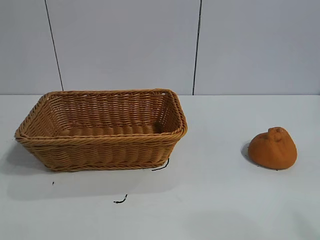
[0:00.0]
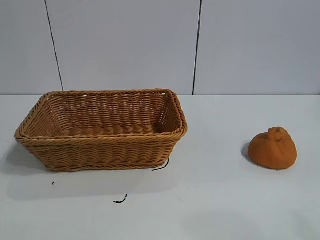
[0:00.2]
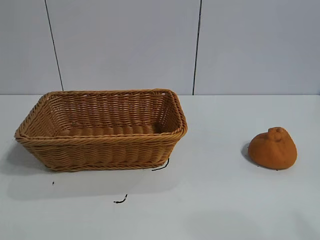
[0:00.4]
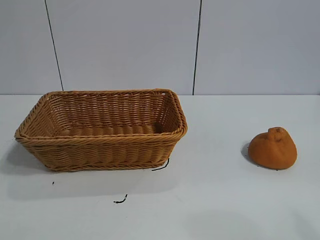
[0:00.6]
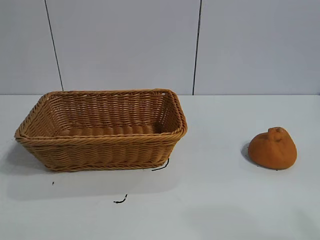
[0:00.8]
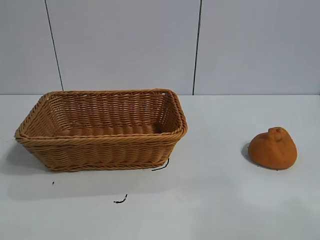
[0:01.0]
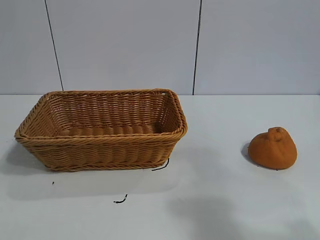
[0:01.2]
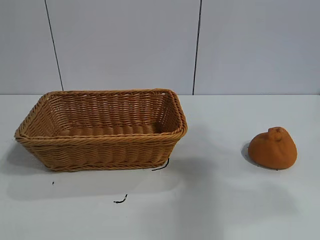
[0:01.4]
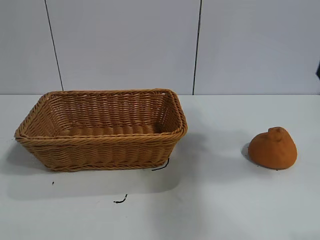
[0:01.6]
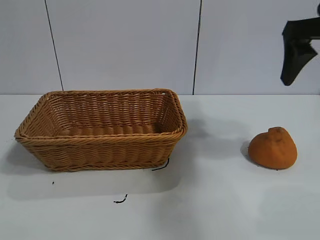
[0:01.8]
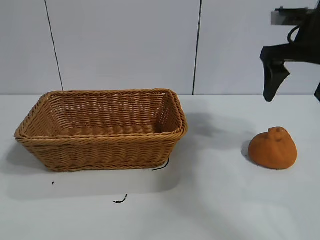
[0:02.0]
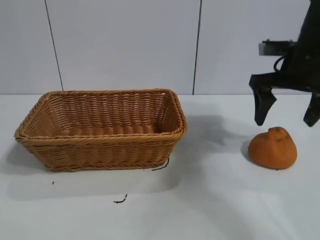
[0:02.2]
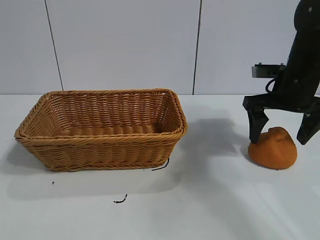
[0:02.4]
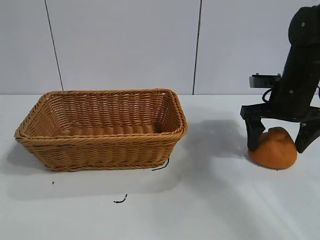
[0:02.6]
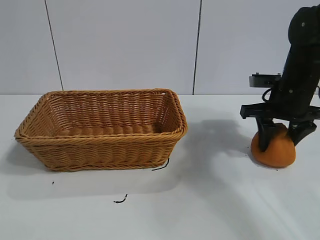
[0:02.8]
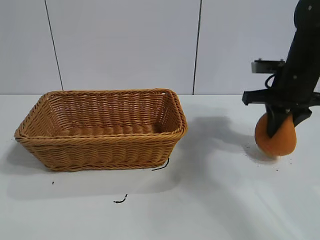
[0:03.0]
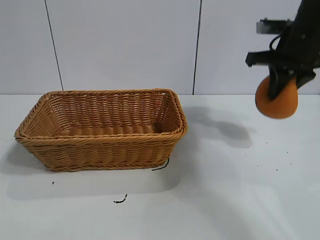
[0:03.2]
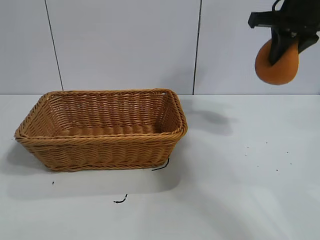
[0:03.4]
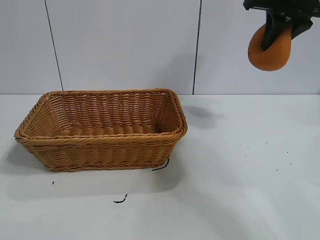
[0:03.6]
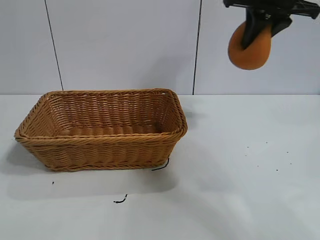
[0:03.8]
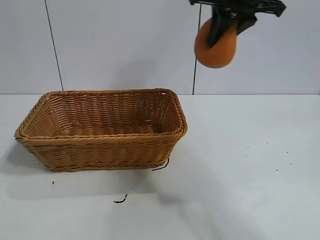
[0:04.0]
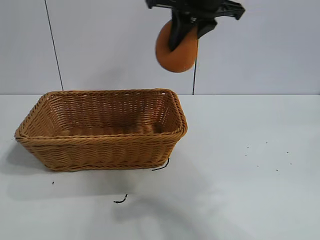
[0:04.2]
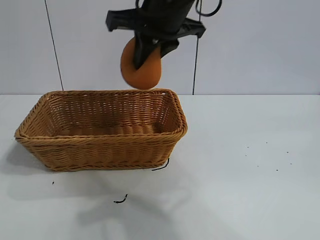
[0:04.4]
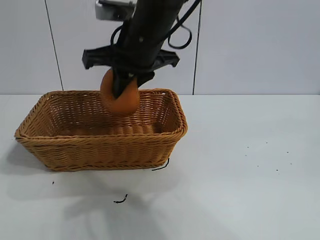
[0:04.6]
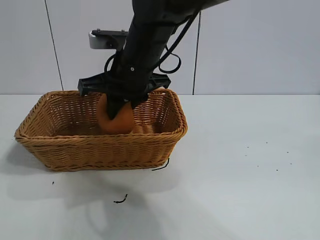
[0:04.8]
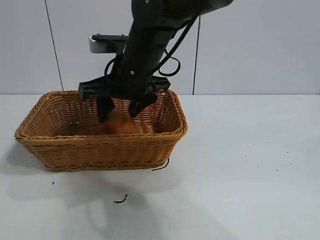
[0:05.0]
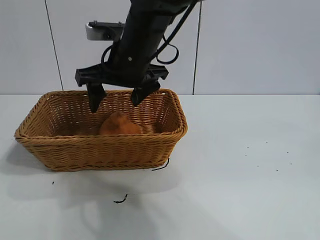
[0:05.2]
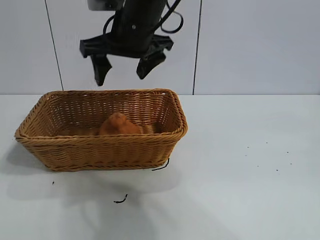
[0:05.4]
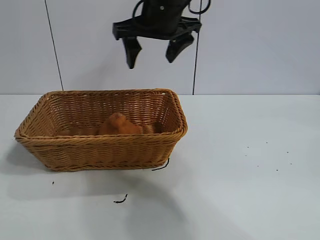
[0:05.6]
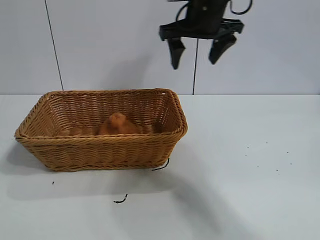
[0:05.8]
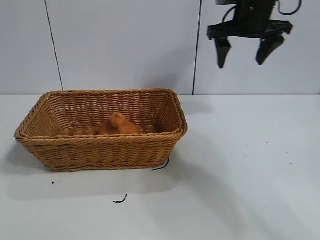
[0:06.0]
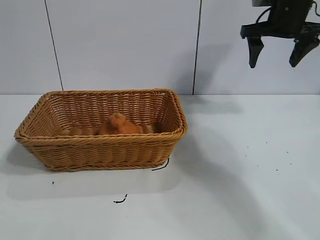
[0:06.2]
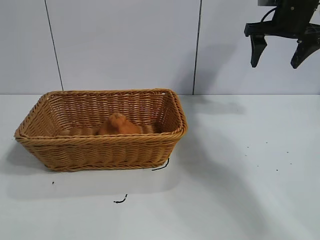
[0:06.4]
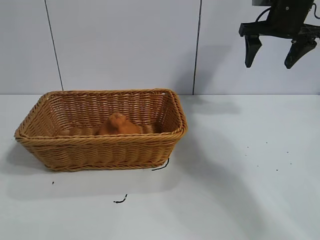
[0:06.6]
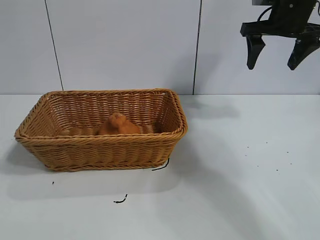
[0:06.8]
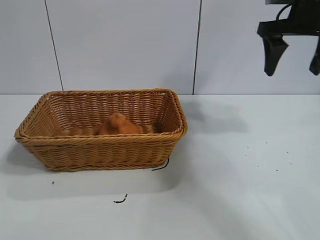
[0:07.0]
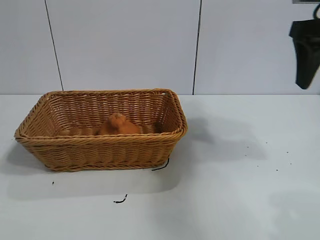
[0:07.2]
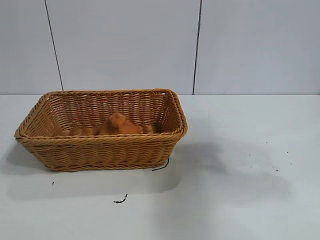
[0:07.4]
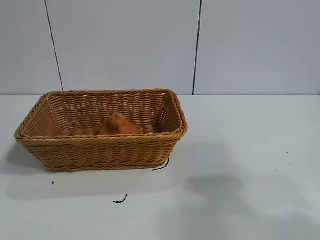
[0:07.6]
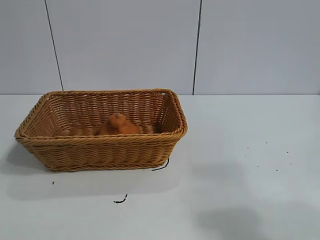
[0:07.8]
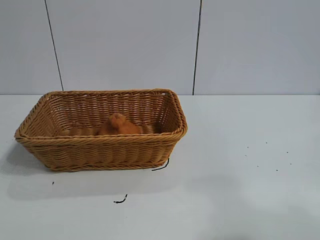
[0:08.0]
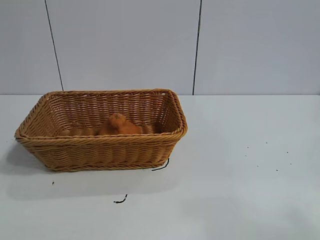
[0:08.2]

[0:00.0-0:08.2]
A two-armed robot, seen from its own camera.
Task of the whole recording: pick up the orange and put it into the basket.
Step, 0:00.8 to 0:02.8: Grasp the orange with right gripper.
Step, 0:03.2 to 0:05.0: Place the orange in the basket with right gripper.

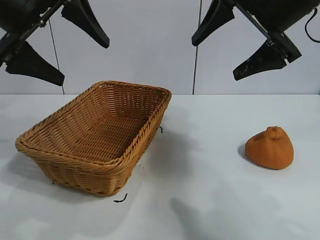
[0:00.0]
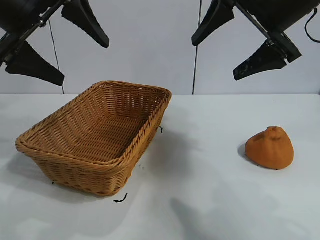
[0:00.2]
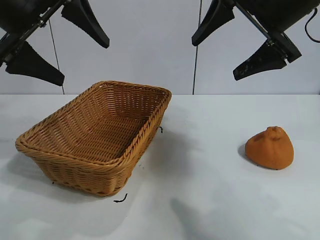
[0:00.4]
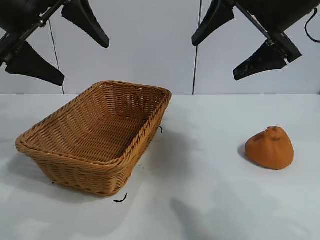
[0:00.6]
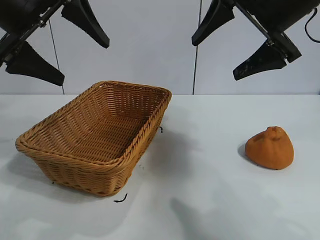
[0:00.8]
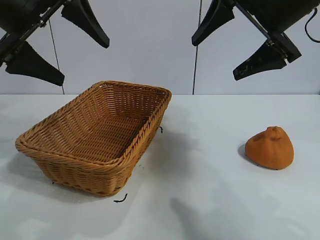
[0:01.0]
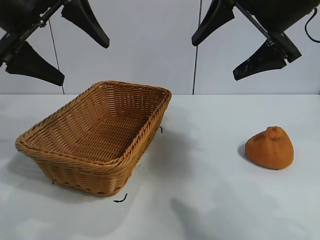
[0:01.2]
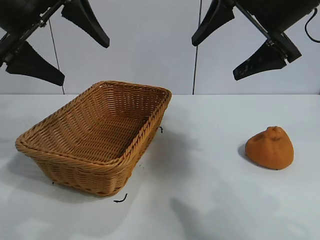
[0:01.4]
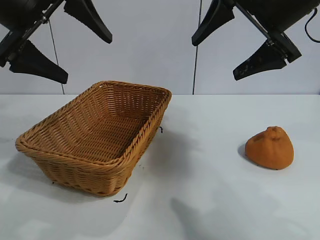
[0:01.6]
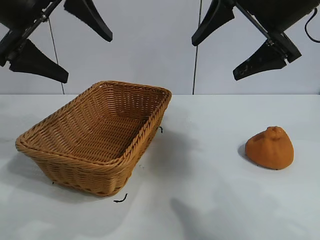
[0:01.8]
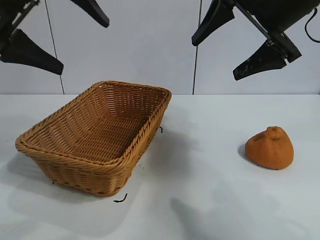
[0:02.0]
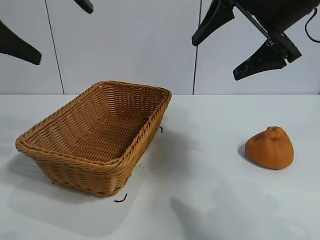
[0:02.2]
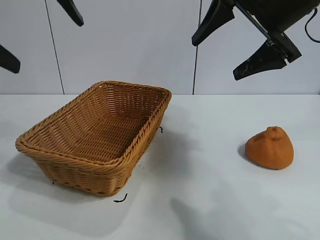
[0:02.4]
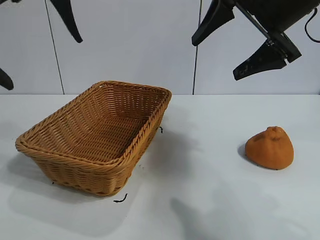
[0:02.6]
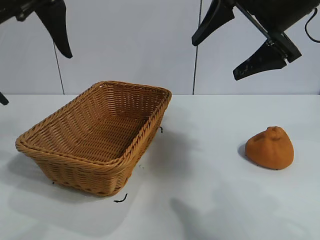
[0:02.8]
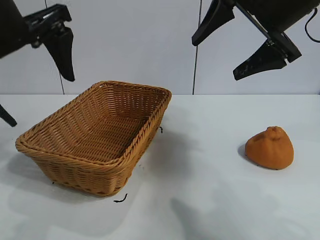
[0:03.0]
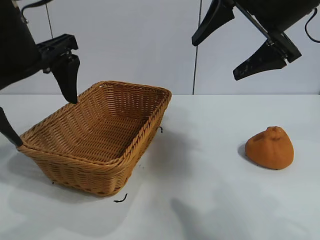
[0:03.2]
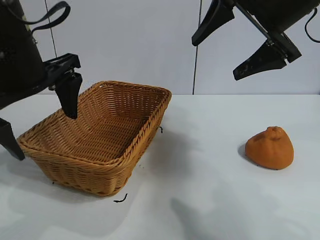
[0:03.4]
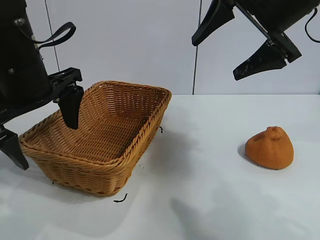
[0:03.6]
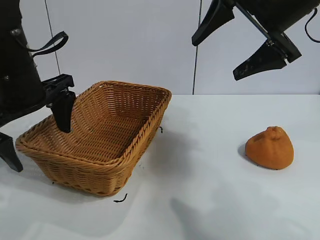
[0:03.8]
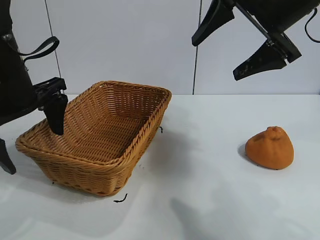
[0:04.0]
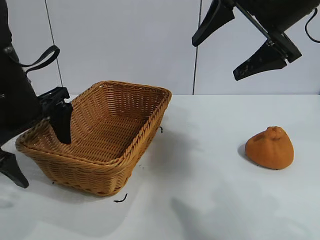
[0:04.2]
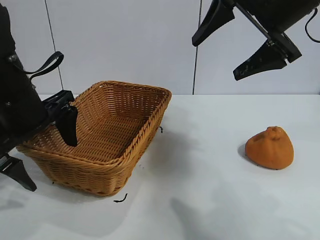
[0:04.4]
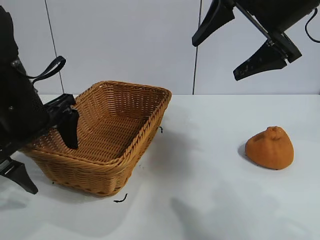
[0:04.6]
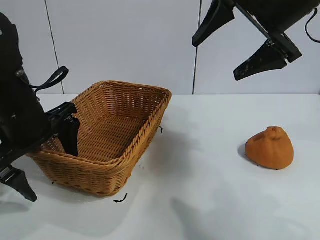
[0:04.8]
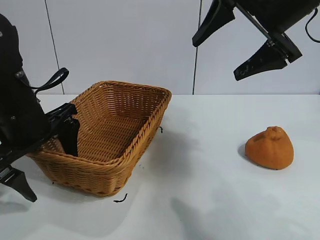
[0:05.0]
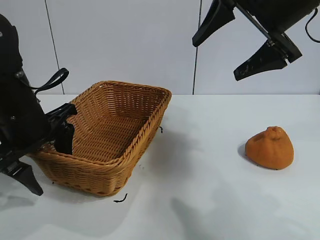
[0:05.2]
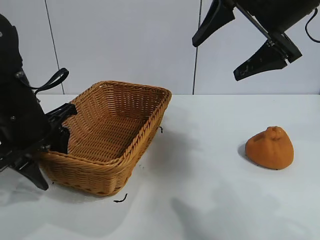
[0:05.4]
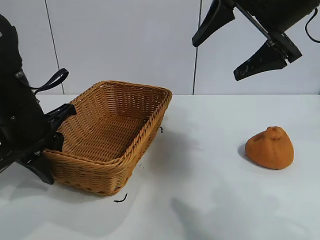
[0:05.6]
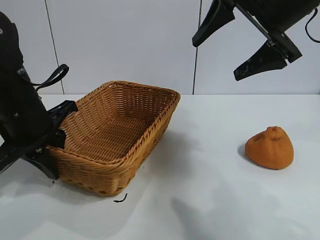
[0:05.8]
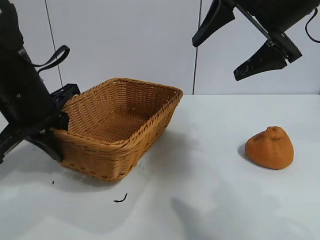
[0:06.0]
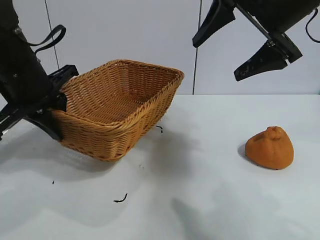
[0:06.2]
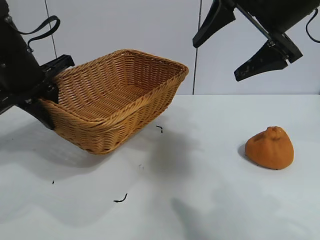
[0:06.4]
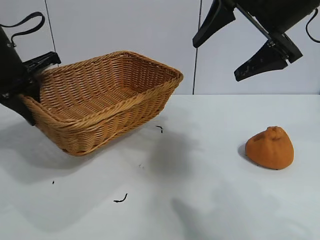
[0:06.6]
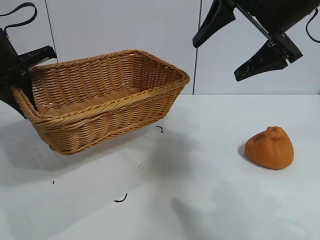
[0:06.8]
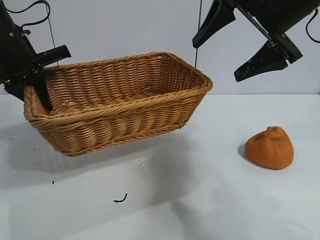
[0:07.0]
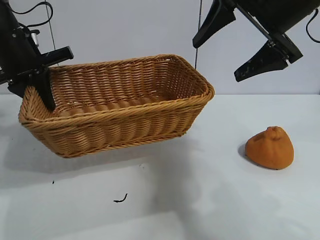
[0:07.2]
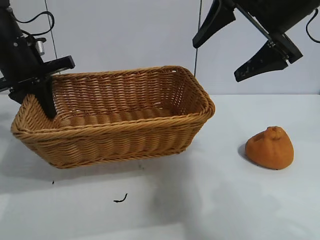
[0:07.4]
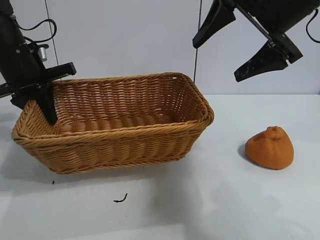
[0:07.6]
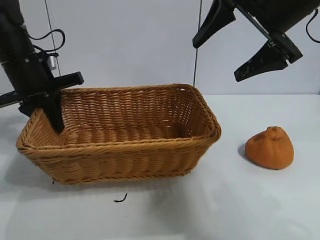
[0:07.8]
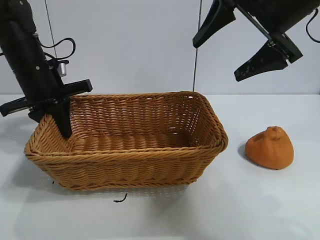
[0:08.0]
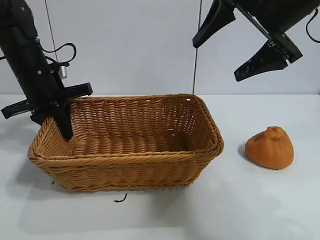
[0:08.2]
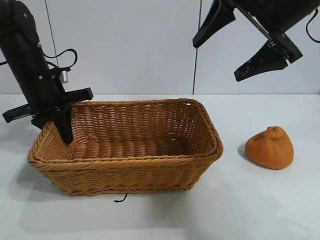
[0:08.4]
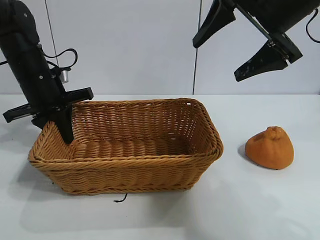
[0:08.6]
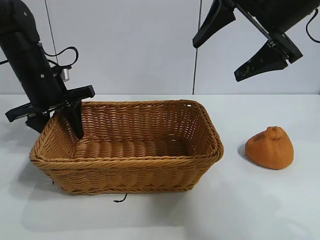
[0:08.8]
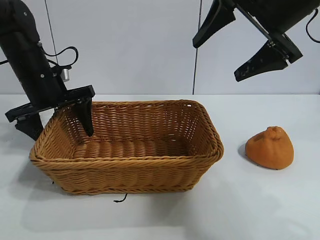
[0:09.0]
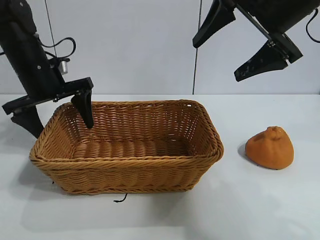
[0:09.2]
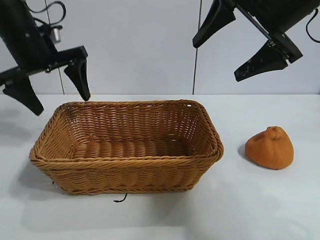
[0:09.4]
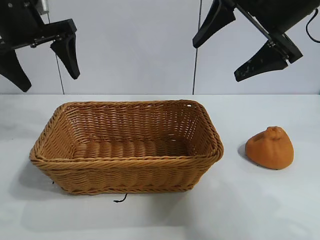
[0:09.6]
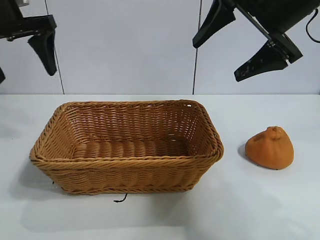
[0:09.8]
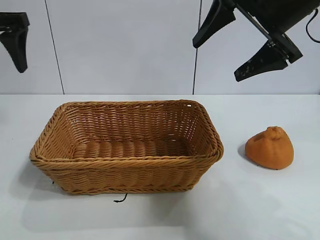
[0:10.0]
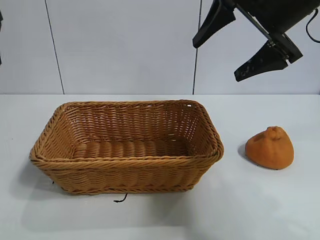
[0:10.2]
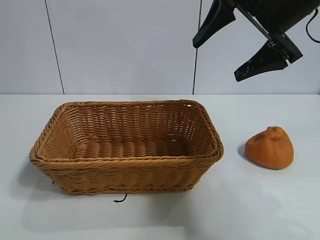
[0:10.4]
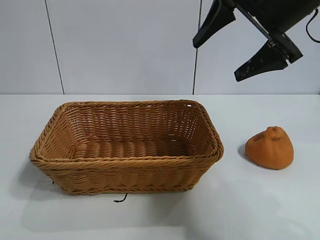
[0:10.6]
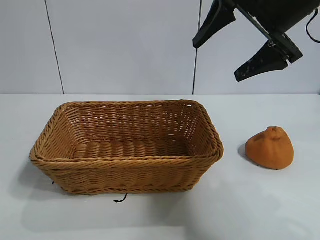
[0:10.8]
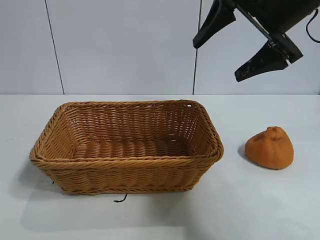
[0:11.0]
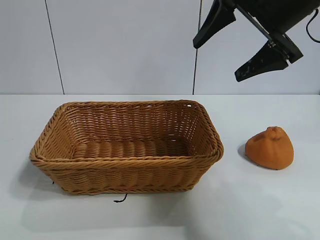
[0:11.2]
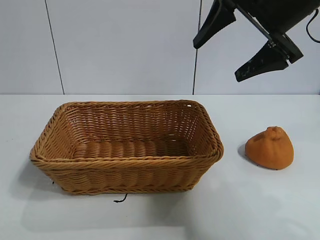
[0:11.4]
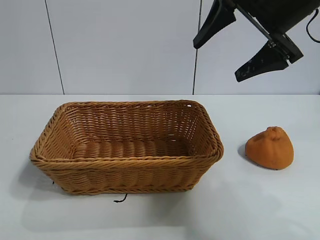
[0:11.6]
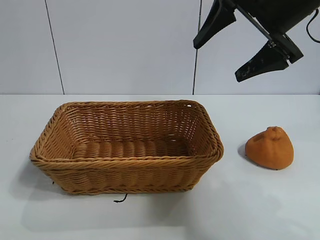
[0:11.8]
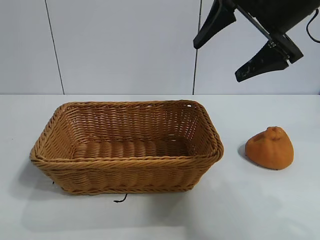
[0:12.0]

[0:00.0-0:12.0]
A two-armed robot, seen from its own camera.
Task of the whole recording: pick up the orange and put it into the basket.
Step, 0:01.4 to 0:05.6: Grasp the basket with left gripper.
Step, 0:05.8 to 0:09.0: Place the basket in the center of view with left gripper.

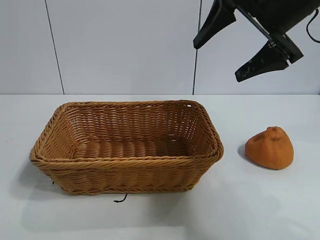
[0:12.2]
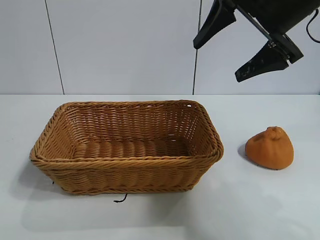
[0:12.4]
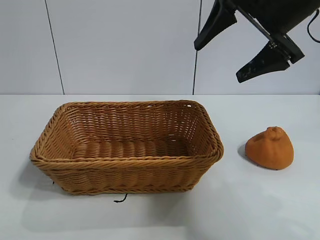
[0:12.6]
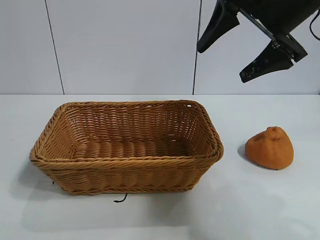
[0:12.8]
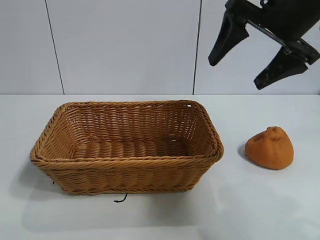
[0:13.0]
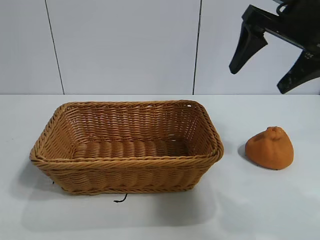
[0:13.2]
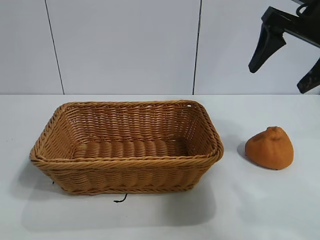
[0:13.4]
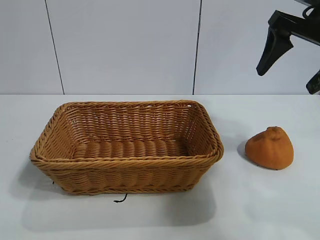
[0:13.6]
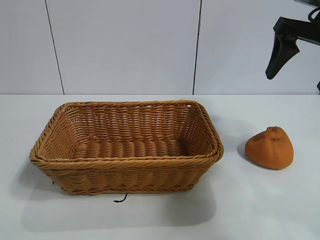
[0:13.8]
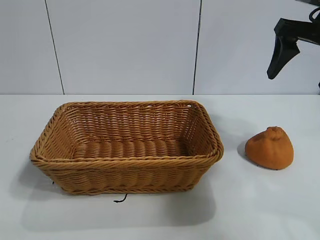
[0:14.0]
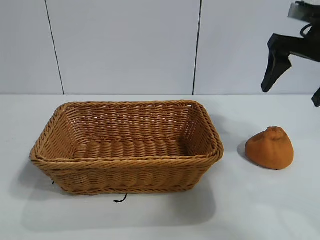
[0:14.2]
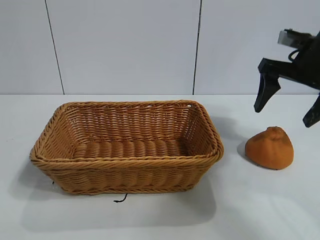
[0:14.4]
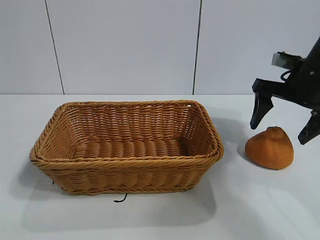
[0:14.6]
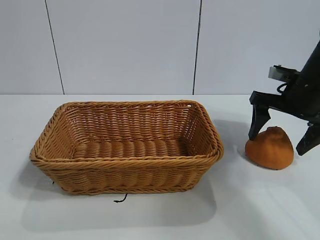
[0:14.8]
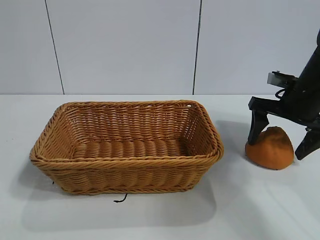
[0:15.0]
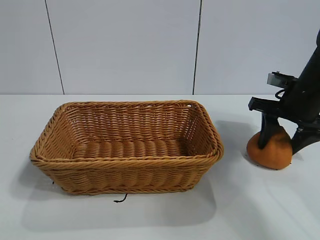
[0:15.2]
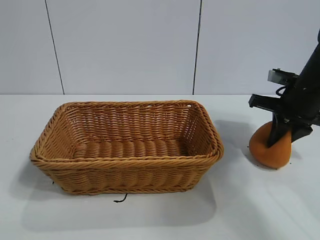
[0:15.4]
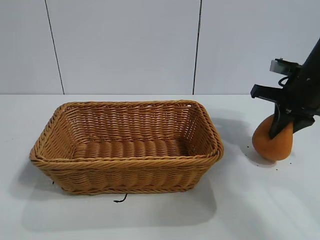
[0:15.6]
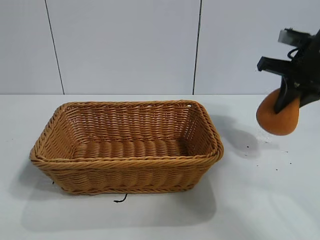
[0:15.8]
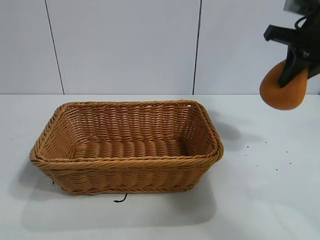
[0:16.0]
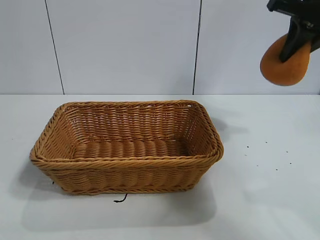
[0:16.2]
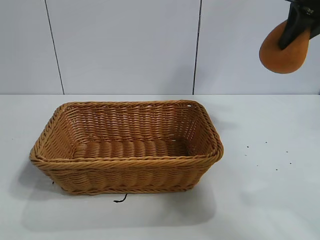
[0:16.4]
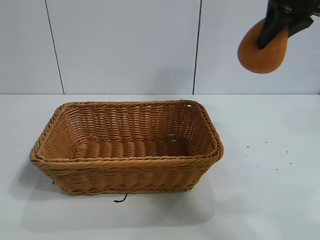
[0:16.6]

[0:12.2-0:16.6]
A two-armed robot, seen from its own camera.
Task of the whole recording: pick up the orange and put it into the basket.
Step, 0:12.2 to 0:15.4: Grasp the orange with right gripper.
